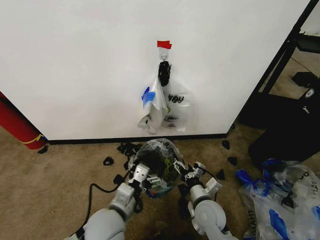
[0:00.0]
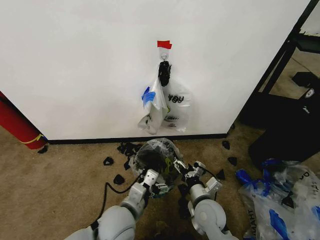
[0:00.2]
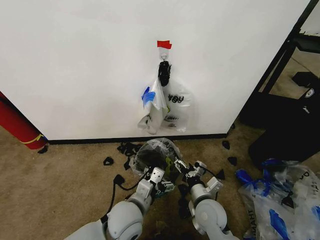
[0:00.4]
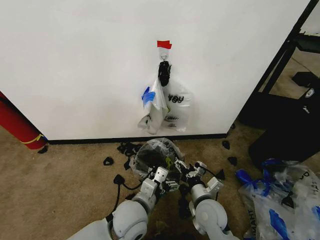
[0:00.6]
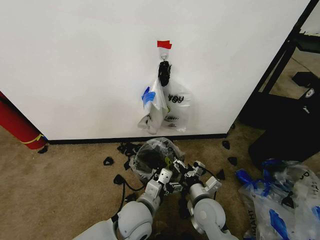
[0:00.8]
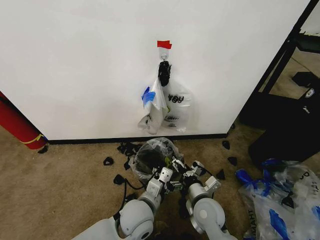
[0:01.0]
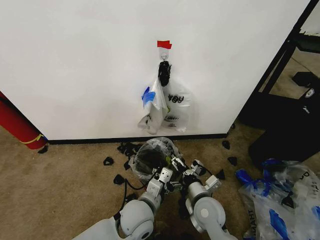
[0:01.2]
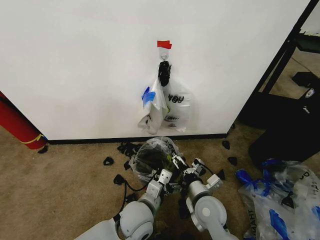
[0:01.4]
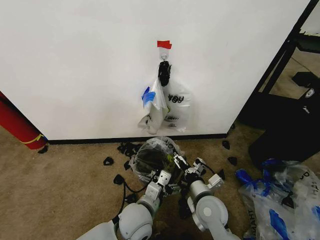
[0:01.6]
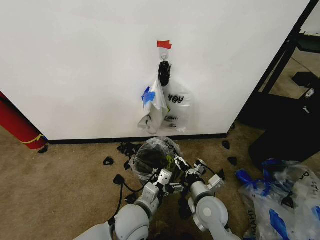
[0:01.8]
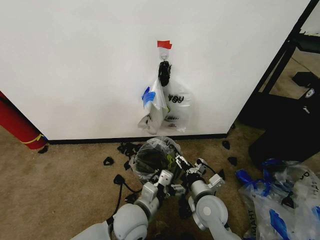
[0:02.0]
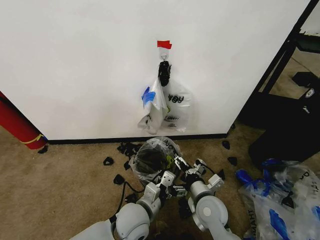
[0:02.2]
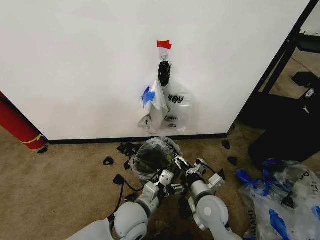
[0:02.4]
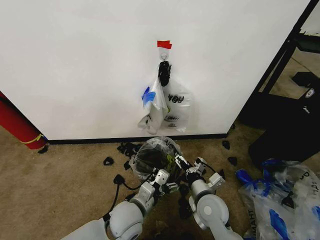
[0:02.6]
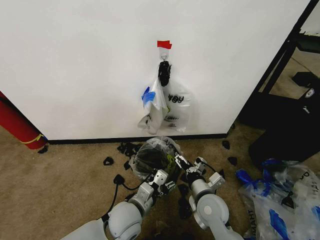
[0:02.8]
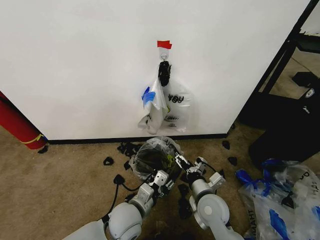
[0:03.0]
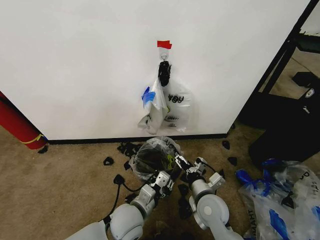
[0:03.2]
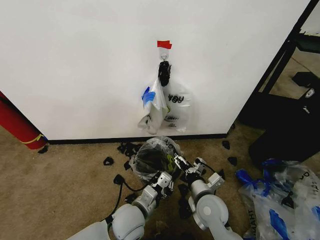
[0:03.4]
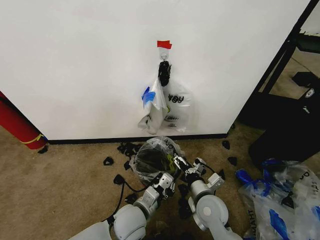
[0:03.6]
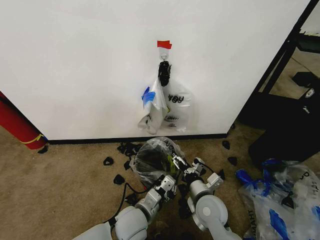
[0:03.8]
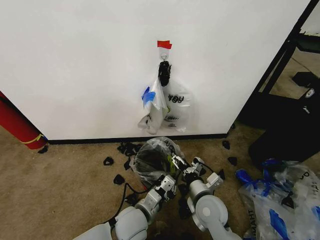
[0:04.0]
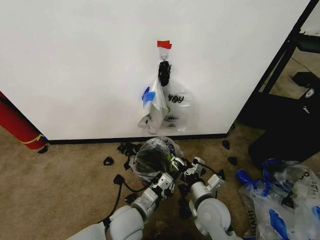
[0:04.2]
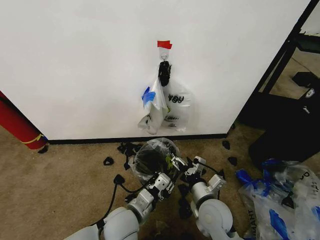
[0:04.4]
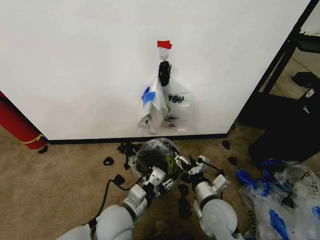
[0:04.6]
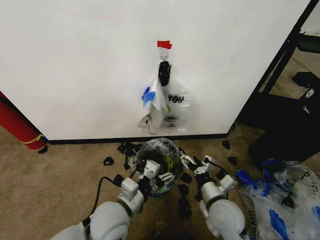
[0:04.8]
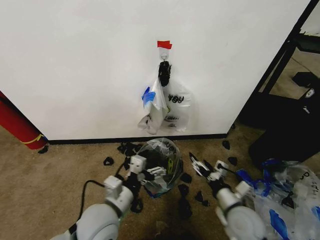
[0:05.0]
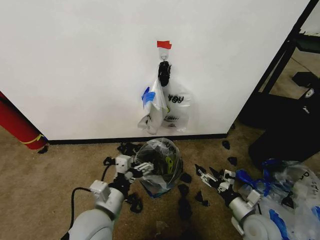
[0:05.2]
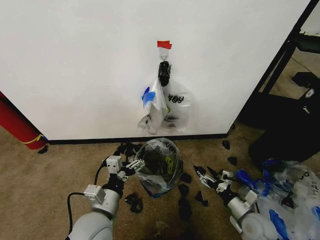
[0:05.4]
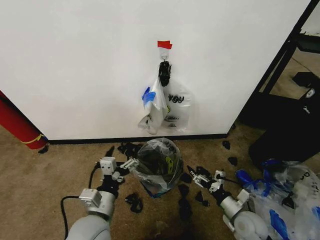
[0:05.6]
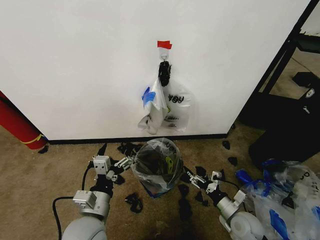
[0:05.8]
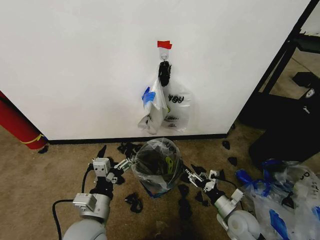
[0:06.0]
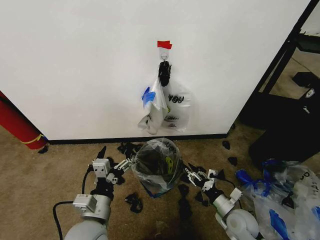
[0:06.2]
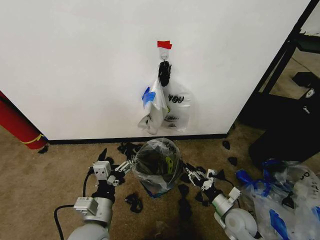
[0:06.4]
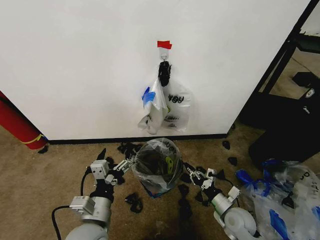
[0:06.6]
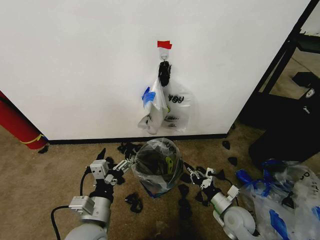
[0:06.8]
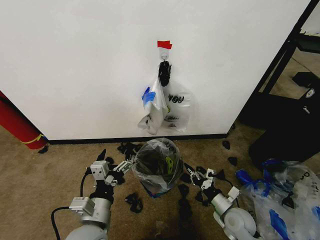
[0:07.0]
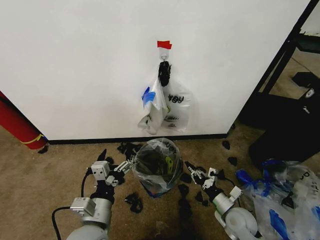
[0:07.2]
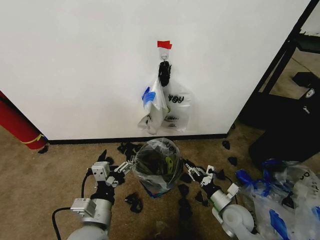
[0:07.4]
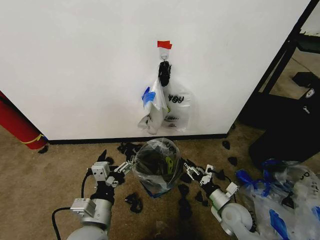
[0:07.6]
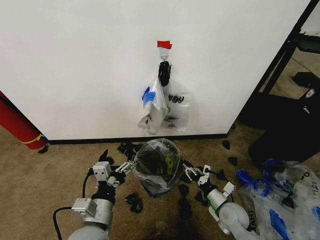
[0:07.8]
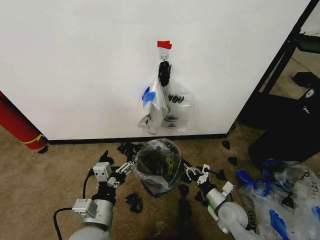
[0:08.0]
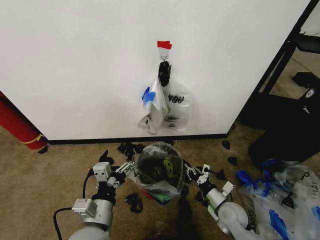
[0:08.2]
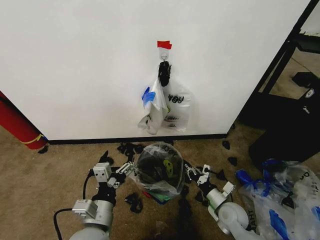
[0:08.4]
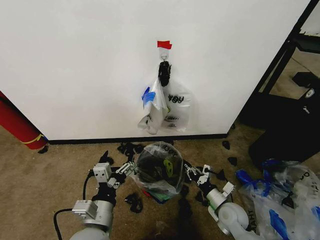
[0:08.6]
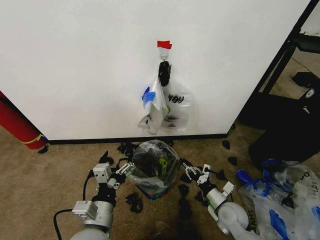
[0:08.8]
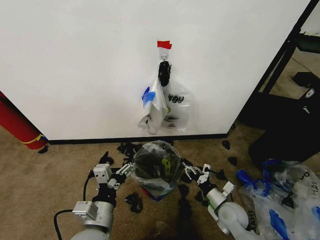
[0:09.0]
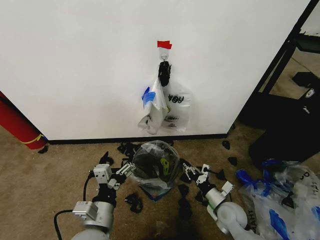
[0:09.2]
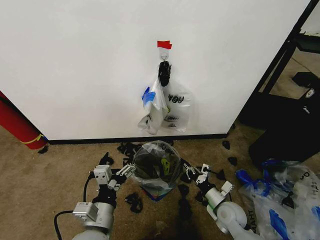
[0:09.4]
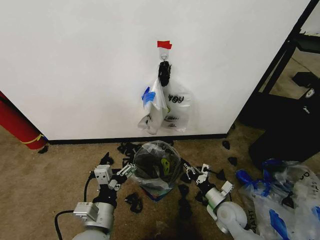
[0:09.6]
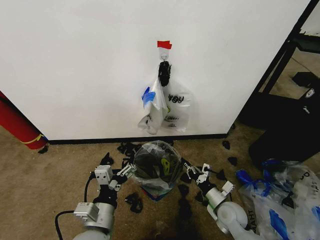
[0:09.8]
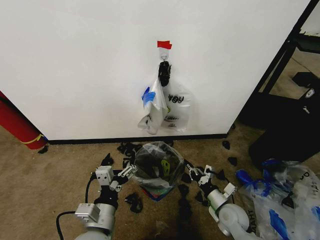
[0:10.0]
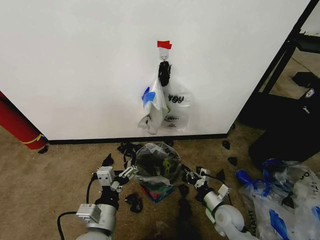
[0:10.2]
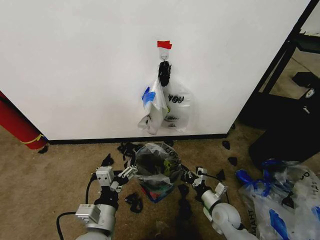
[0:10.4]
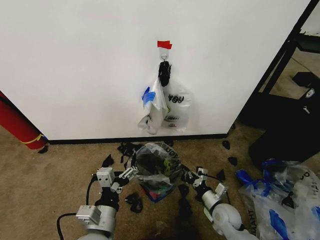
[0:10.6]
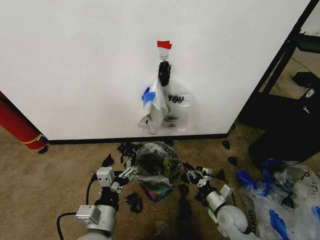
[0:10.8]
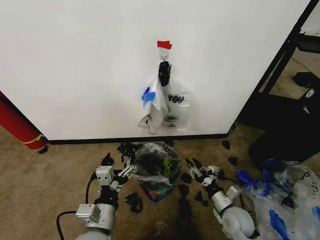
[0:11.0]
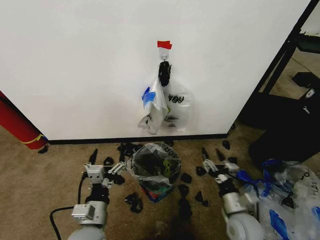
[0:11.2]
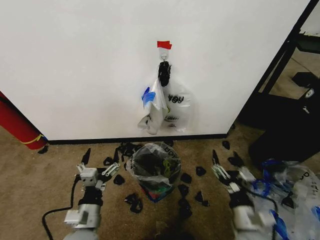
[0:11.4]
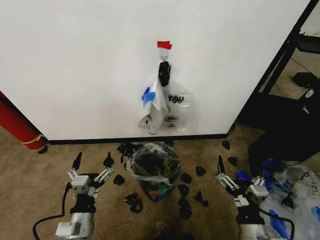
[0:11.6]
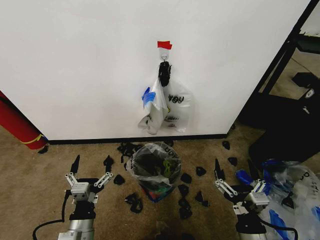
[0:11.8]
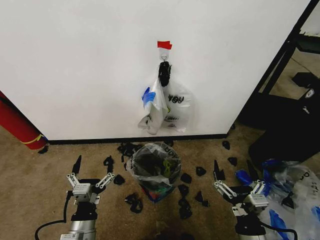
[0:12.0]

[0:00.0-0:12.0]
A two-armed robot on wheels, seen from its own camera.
Task of the whole recording: Pick up the garbage bag from the wall and place it over the trash bin.
0:00.0 to 0:01.6: The left gripper goes roughly 5 cm to the right.
0:01.6 to 0:03.0: The left gripper closes its fingers.
0:03.0 to 0:04.4: The grippers stay close to where they were, moving slightly.
0:04.4 to 0:06.0: The right gripper shifts approximately 15 cm to the right and downward. The left gripper goes roughly 5 cm to the left, and opens up.
0:06.0 to 0:07.6: The right gripper closes, then reopens.
0:07.6 to 0:09.0: The right gripper closes and opens again.
0:09.0 to 0:10.4: The right gripper closes its fingers.
0:10.4 to 0:12.0: The left gripper moves downward and to the left, roughly 10 cm; the right gripper is displaced backward and upward by roughly 20 cm, and opens.

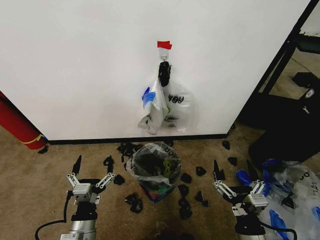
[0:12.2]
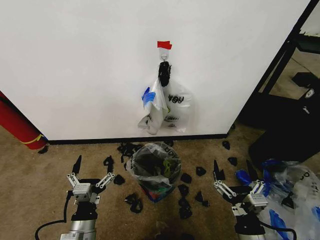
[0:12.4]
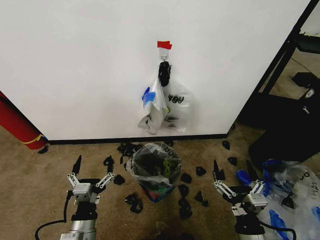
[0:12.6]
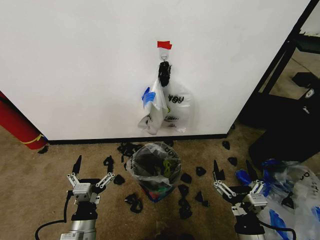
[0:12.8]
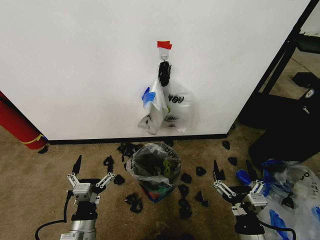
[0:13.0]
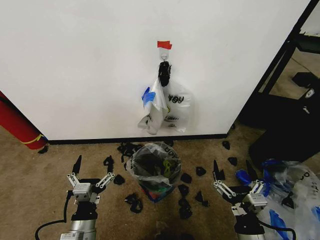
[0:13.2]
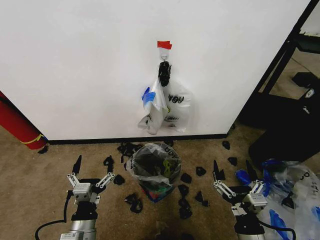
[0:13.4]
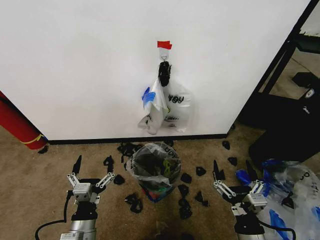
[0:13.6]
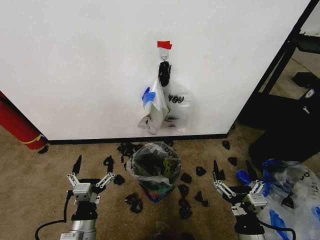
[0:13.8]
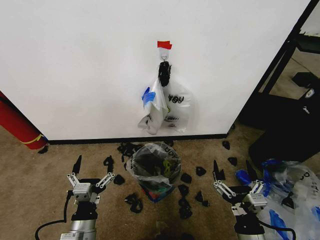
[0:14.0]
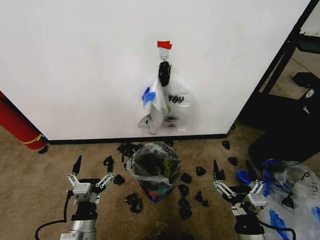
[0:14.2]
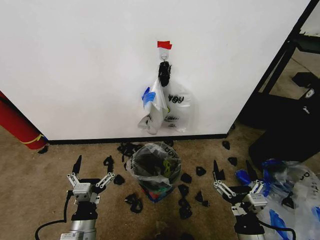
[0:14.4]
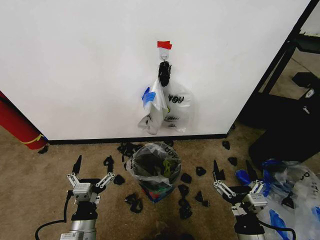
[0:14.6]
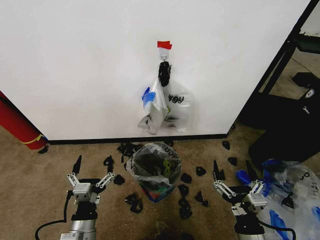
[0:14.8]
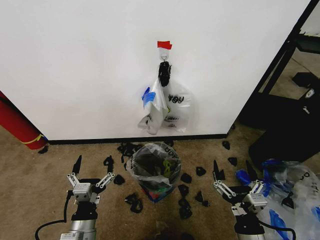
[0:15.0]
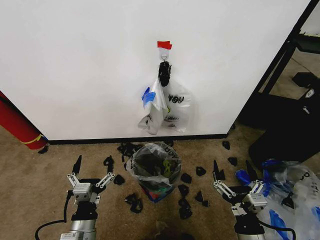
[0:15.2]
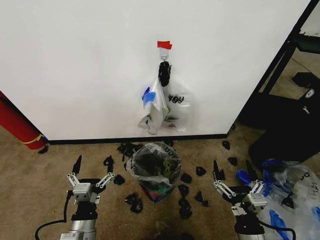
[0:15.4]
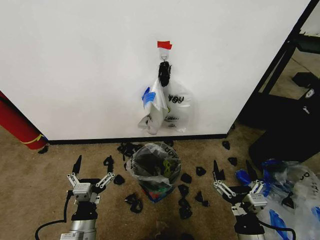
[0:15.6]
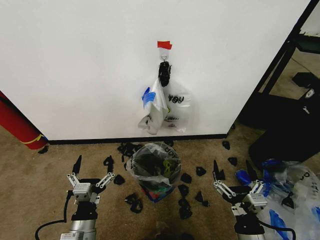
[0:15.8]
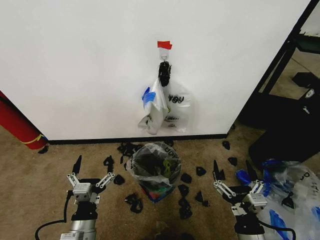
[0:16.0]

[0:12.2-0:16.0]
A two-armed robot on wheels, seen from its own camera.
Task of the whole recording: Pick up the garbage bag from the wall and place it over the trash bin.
0:12.2 to 0:16.0: Both grippers stay about where they are.

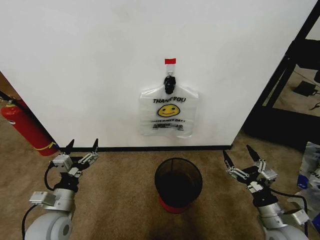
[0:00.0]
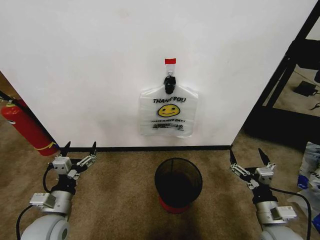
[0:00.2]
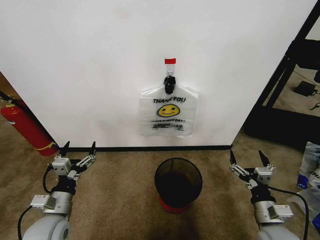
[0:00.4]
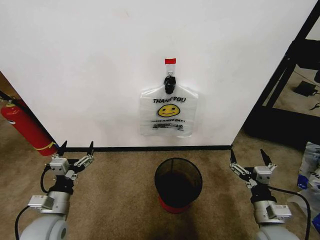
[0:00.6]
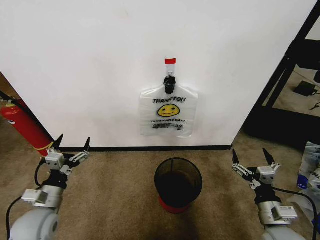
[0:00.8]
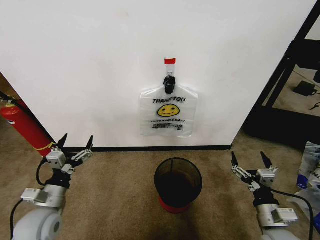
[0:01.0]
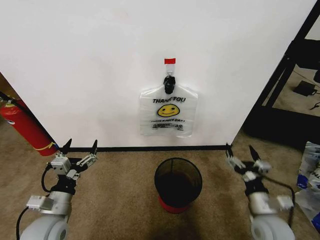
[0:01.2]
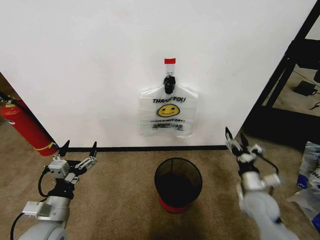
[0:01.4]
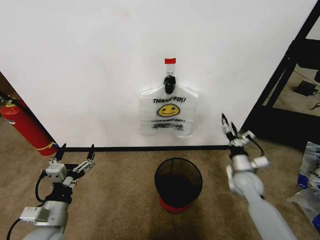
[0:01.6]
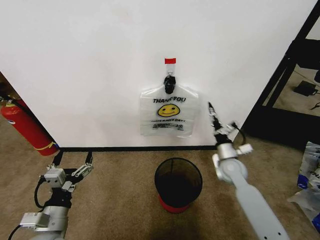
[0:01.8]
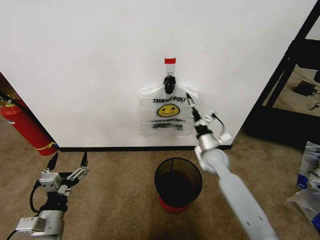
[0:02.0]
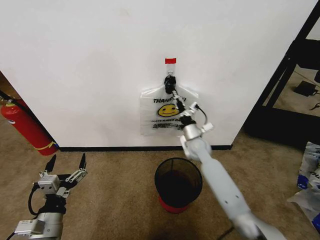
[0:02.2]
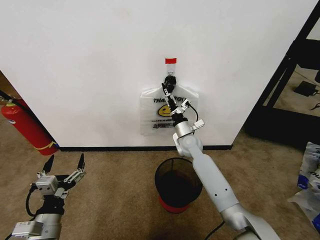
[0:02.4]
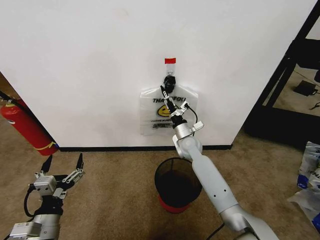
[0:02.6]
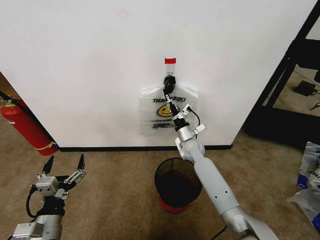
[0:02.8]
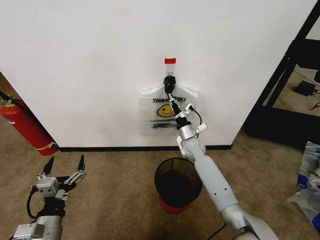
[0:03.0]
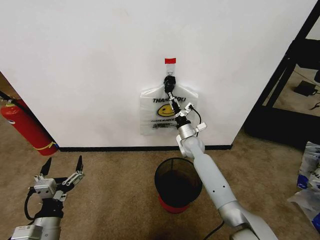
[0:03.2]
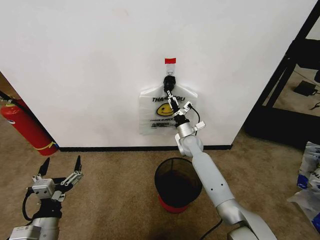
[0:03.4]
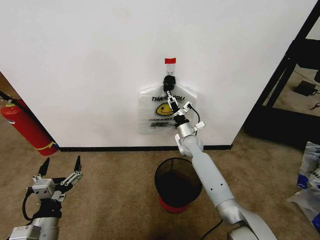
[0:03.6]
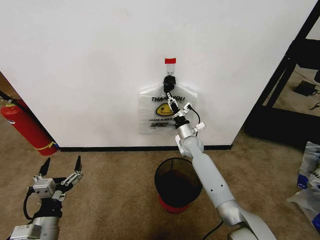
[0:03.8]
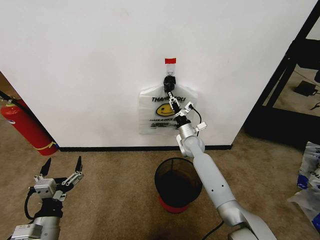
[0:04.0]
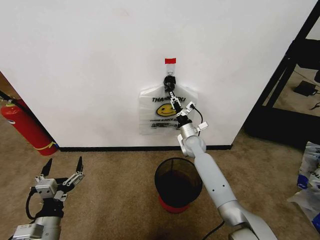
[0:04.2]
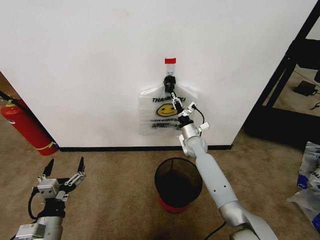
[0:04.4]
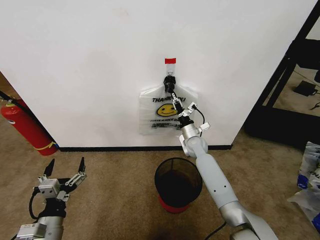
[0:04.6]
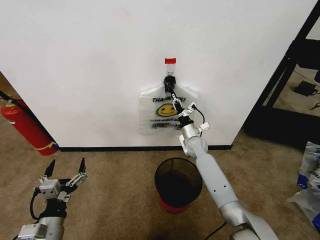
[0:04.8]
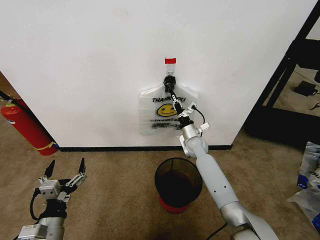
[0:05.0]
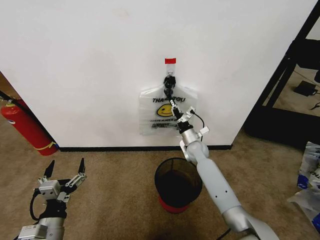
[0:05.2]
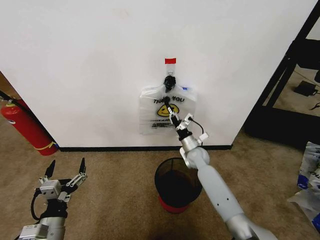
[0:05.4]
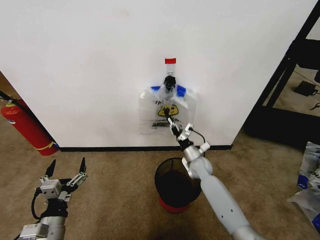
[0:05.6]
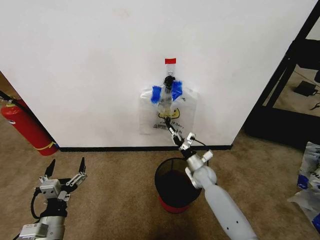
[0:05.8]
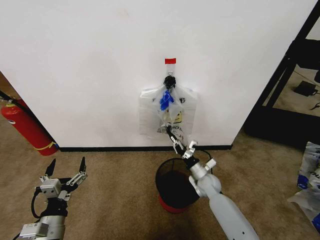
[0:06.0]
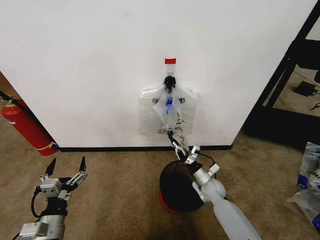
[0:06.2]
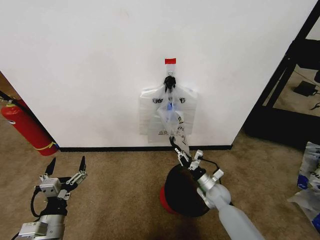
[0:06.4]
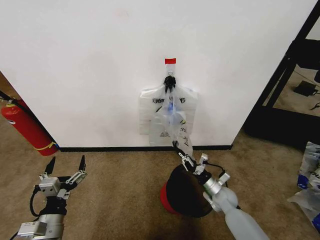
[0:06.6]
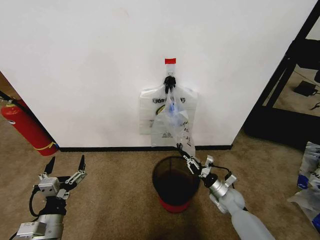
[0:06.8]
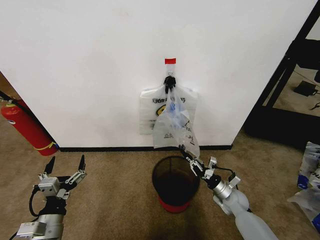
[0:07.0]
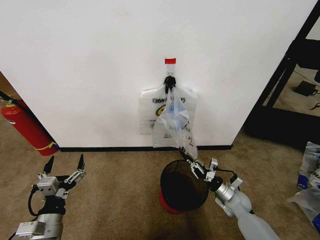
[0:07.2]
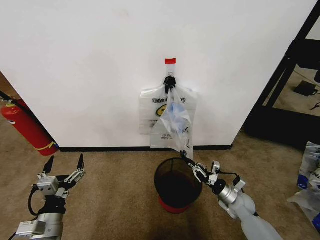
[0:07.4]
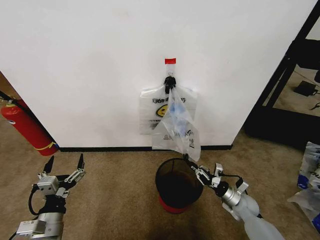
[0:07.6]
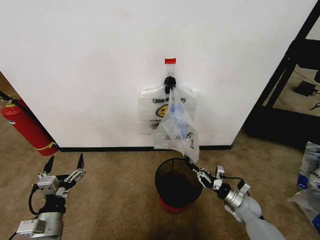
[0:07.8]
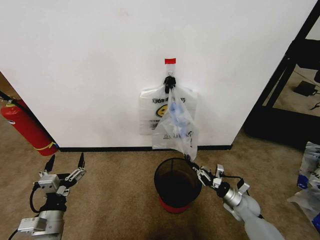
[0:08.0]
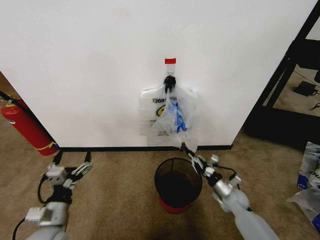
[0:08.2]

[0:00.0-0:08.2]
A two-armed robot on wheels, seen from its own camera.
Task of the whole recording: Pick up the garbage bag from the wall and place it over the trash bin.
0:01.6 to 0:03.2: The right gripper is displaced to the left and forward by approximately 20 cm.
0:03.2 to 0:05.0: The right gripper closes.
0:05.0 to 0:06.6: The right gripper is displaced backward, downward and to the right by some 25 cm.
